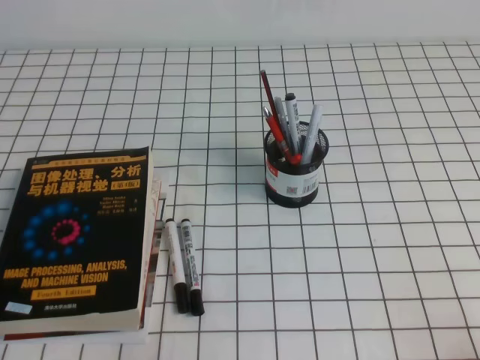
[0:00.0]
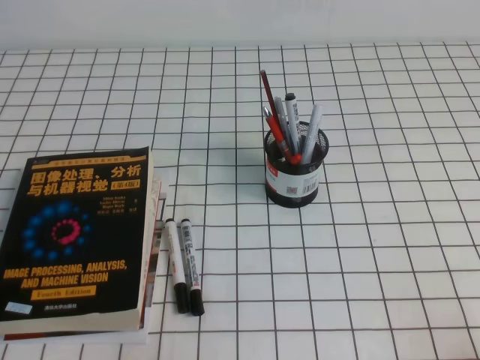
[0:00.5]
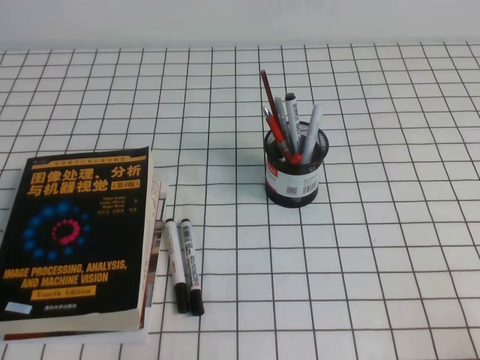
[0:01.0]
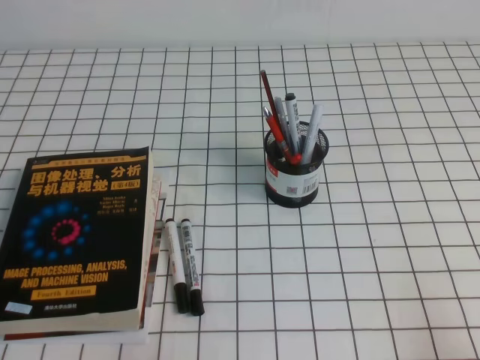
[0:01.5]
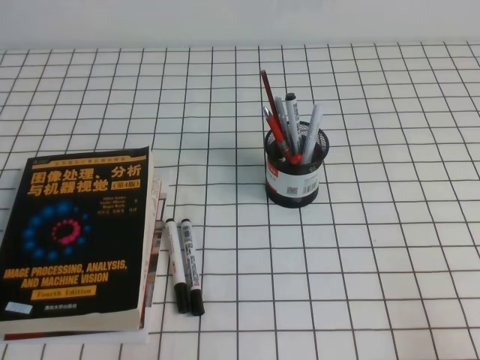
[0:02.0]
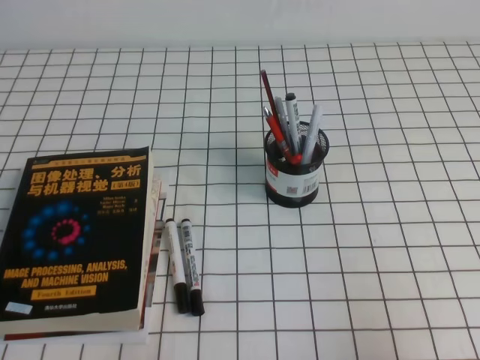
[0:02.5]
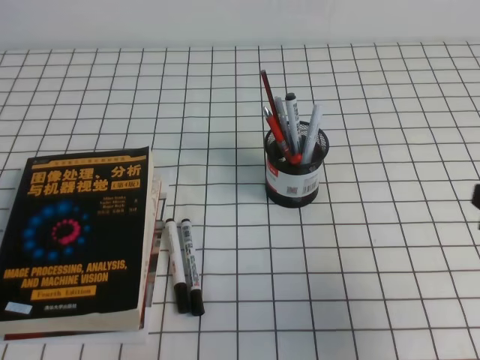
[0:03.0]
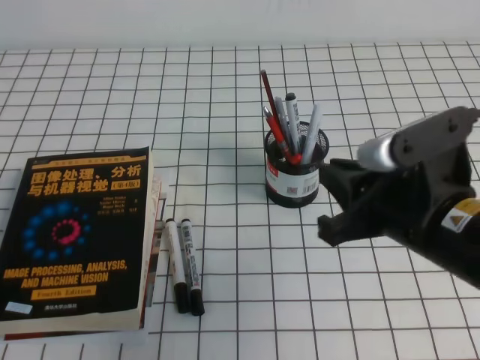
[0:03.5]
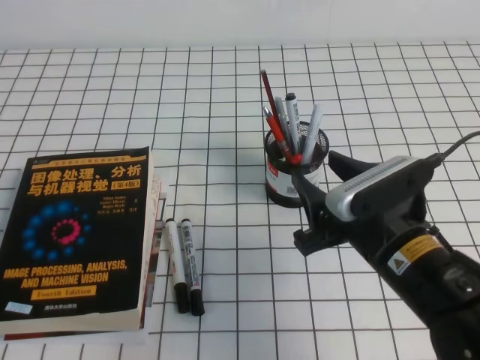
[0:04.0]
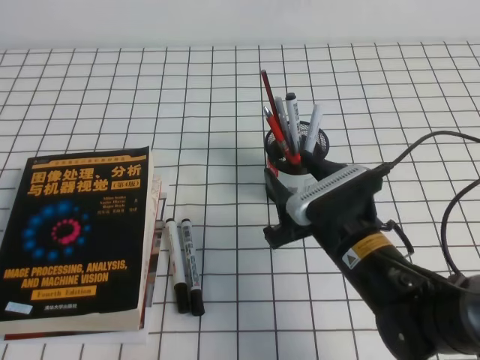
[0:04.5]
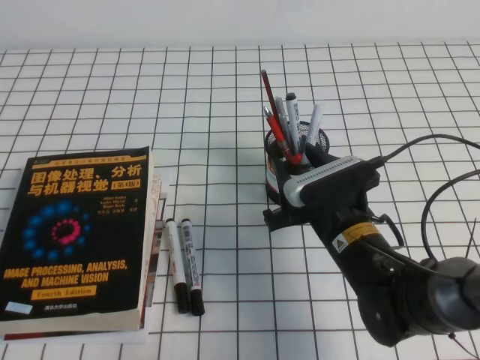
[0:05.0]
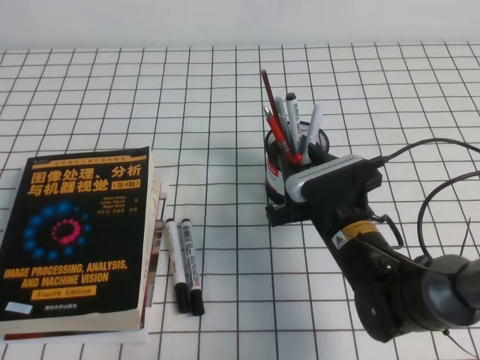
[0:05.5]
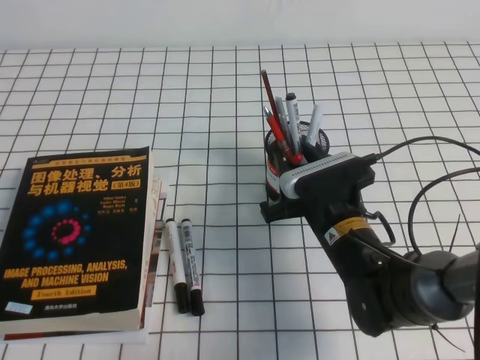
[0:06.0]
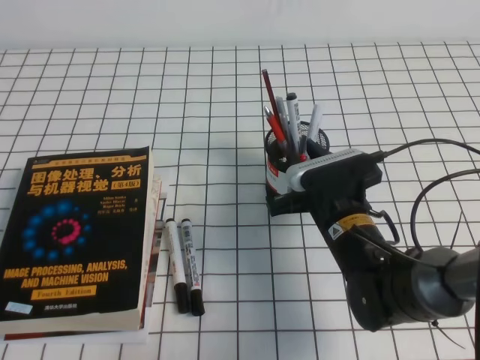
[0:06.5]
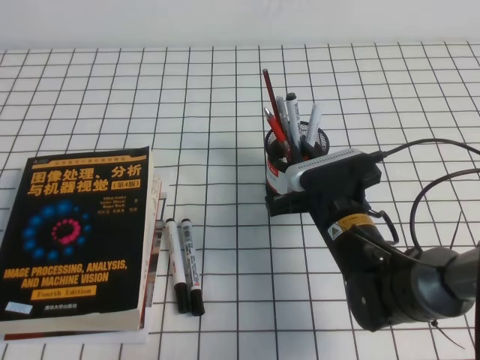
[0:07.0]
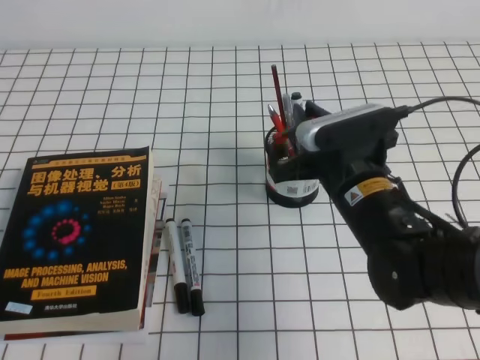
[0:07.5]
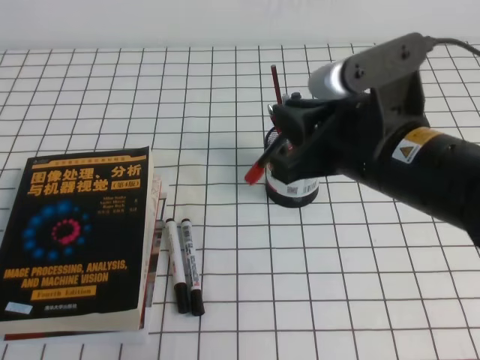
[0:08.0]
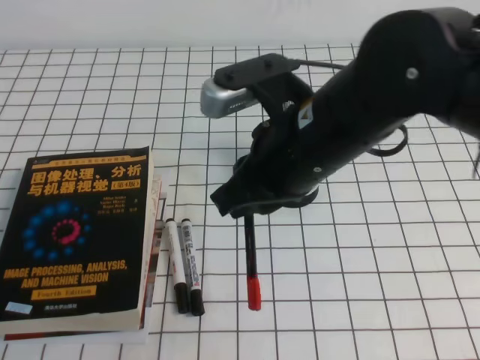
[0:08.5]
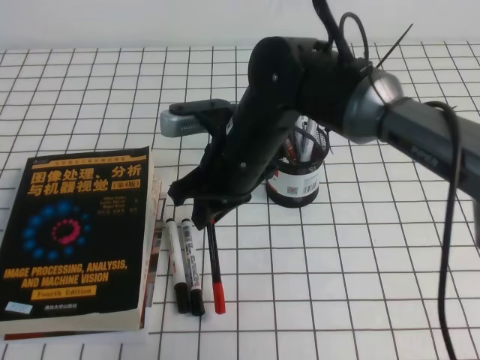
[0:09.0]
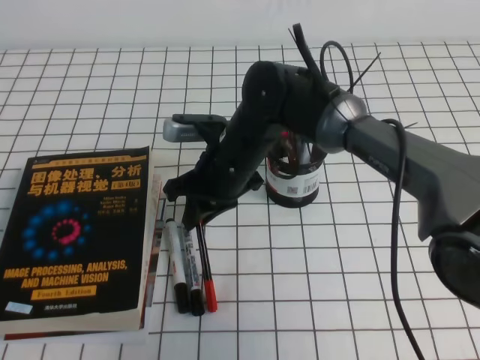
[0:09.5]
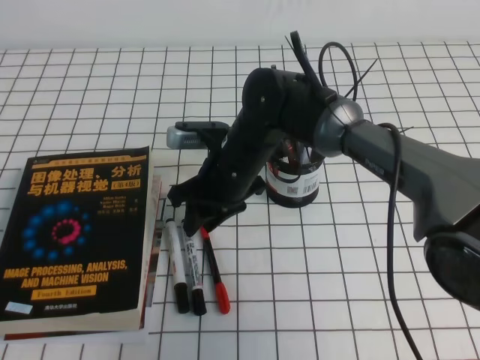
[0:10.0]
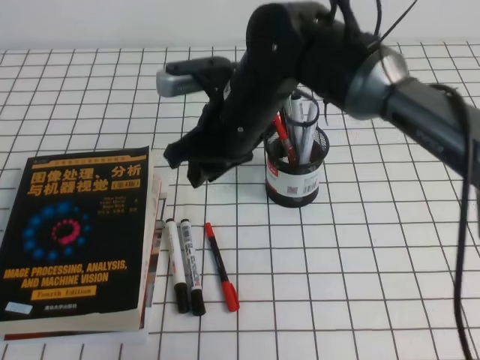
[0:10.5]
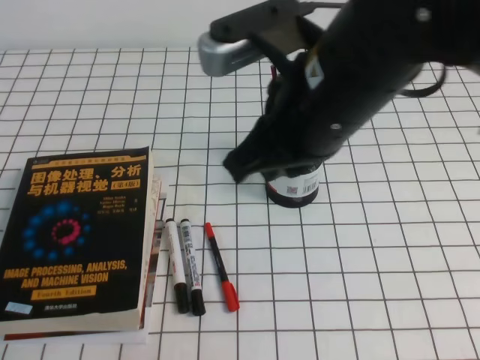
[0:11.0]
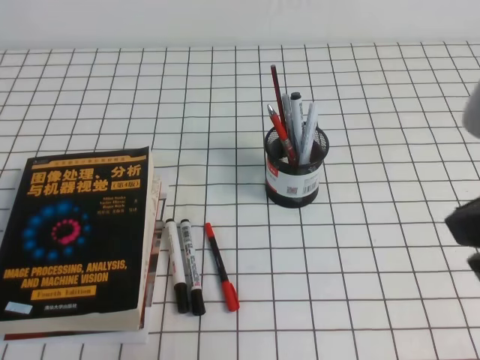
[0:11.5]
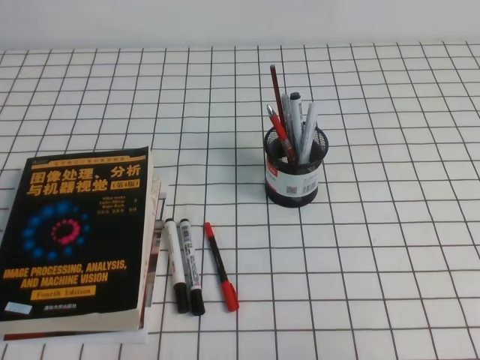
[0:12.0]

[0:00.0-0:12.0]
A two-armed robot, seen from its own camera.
0:02.0 to 0:04.0: The right gripper moves to the left and forward, about 25 cm, and opens up.
0:04.0 to 0:06.0: The right gripper shifts roughly 10 cm forward and downward.
0:06.0 to 0:08.0: The right gripper moves upward, approximately 15 cm, and closes up.
0:08.0 to 0:10.0: The right gripper shifts approximately 20 cm forward, to the left and downward, and opens up.
0:10.0 to 0:12.0: The right gripper shifts about 40 cm to the right, backward and upward, and closes its fingers.

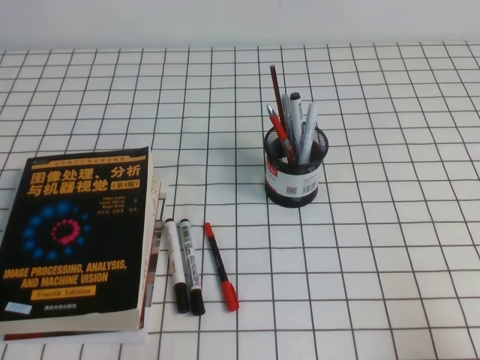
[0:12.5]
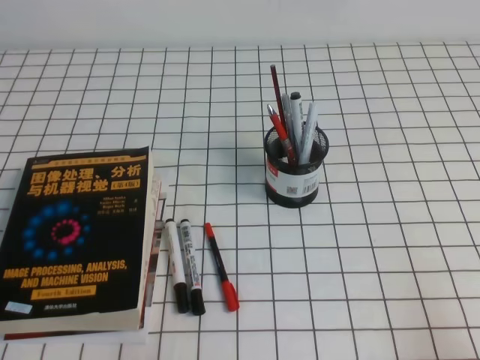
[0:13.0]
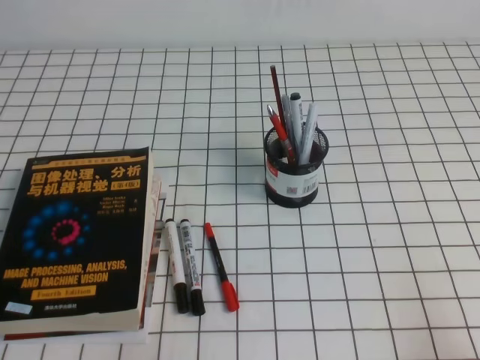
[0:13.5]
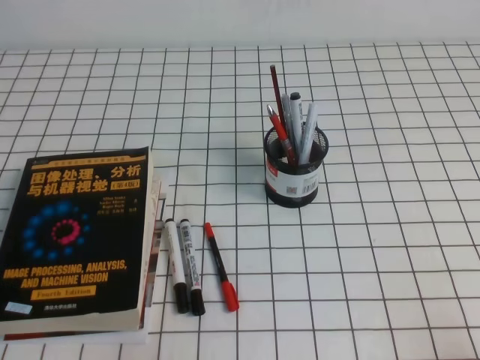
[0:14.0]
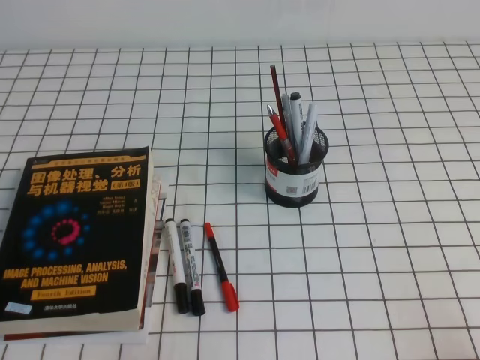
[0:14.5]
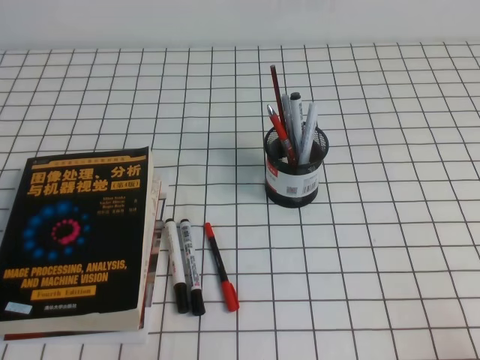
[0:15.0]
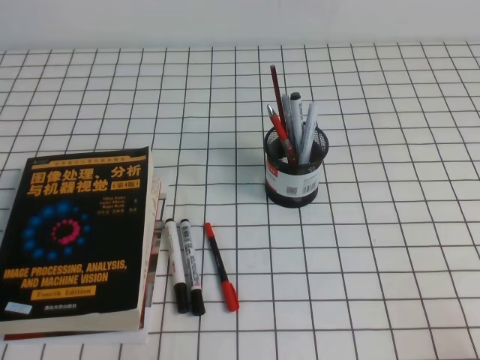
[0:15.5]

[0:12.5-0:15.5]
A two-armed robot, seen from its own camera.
0:14.0 to 0:15.5: Both grippers stay put.
